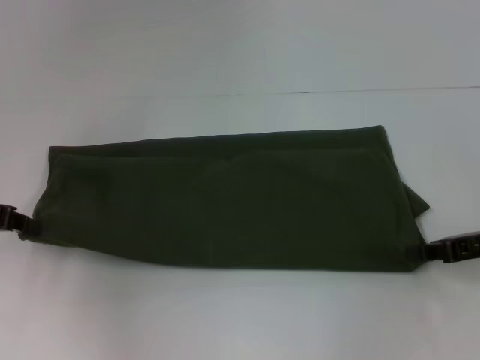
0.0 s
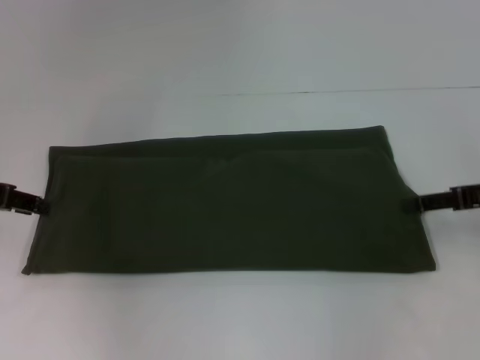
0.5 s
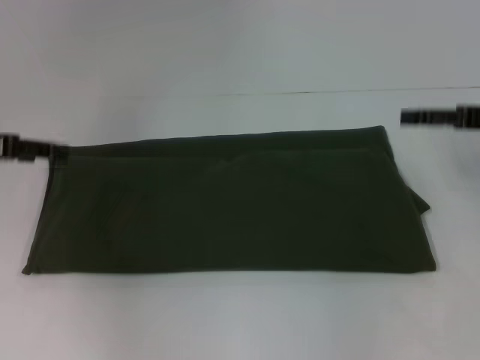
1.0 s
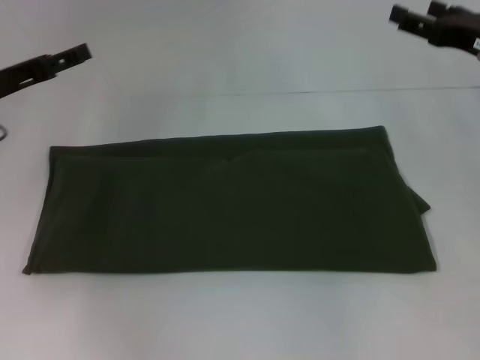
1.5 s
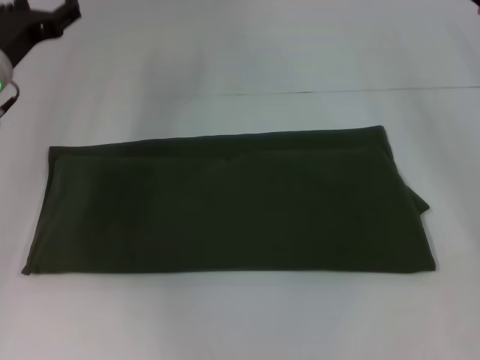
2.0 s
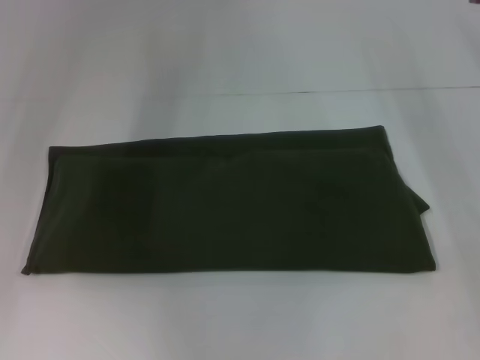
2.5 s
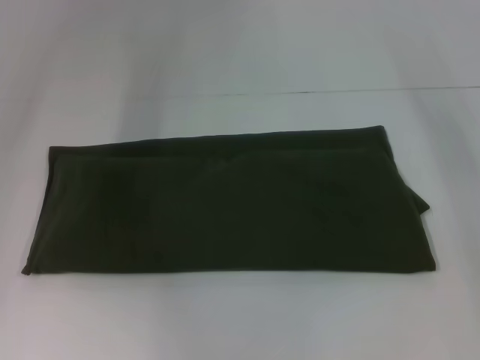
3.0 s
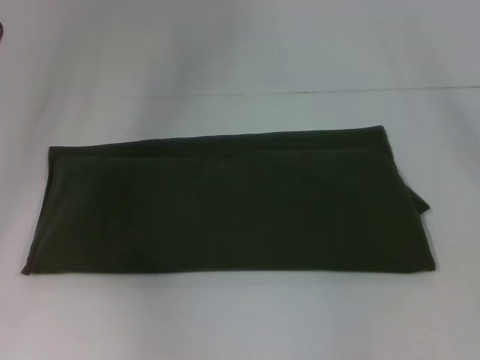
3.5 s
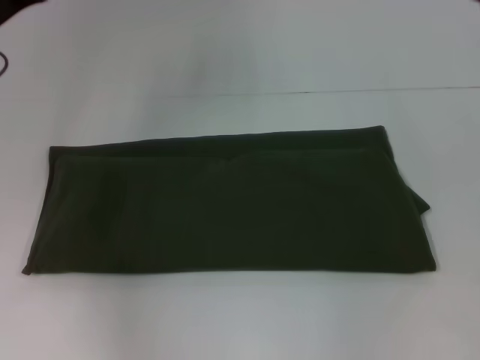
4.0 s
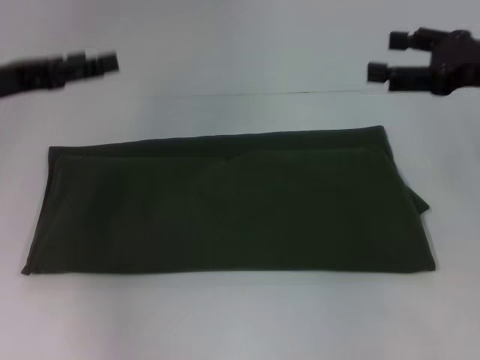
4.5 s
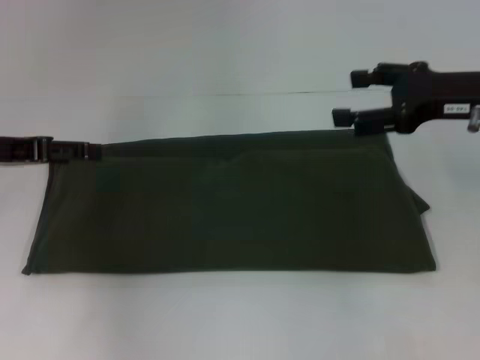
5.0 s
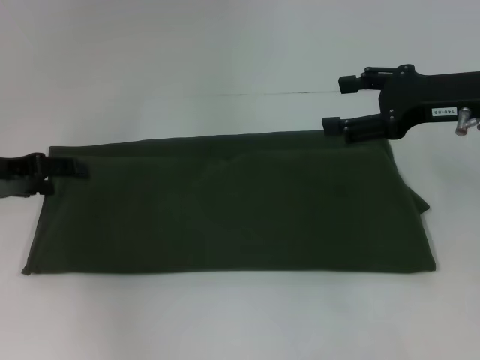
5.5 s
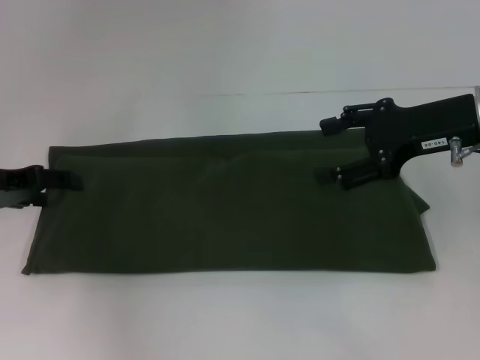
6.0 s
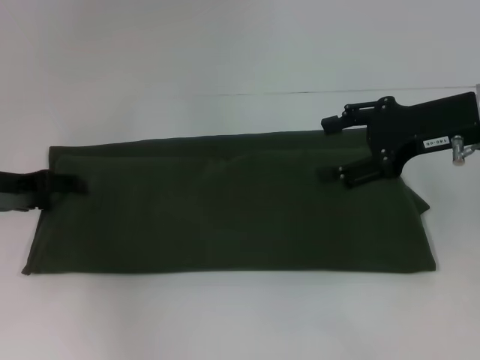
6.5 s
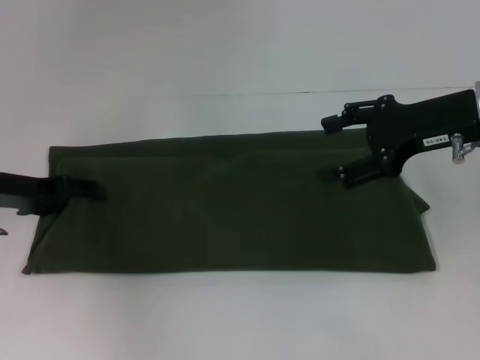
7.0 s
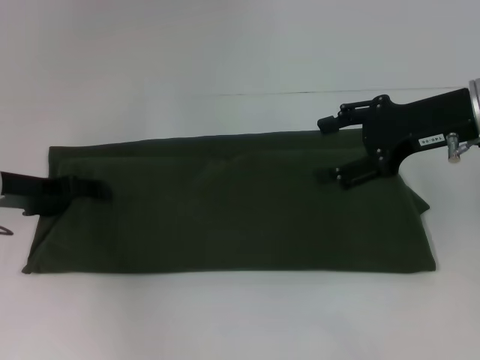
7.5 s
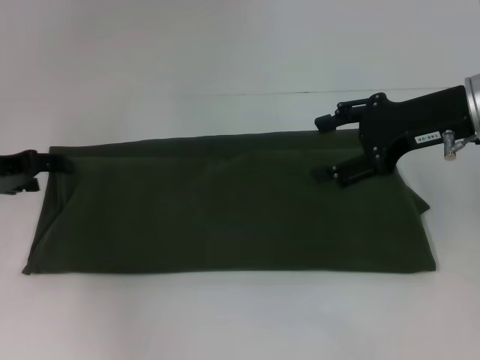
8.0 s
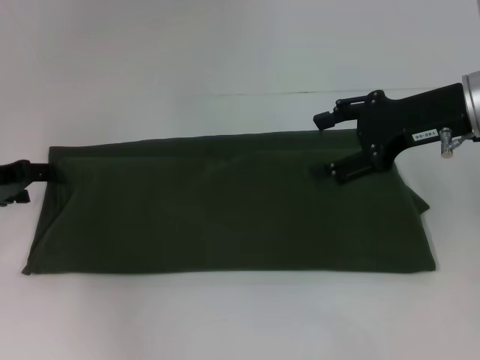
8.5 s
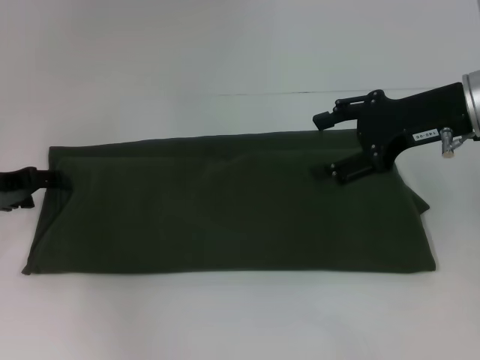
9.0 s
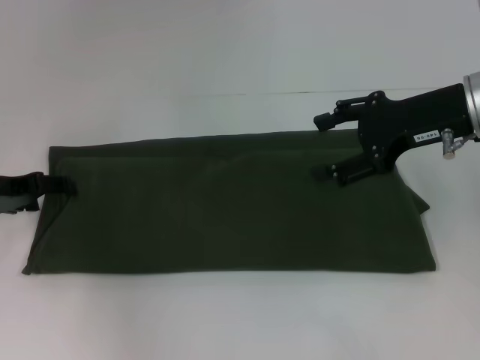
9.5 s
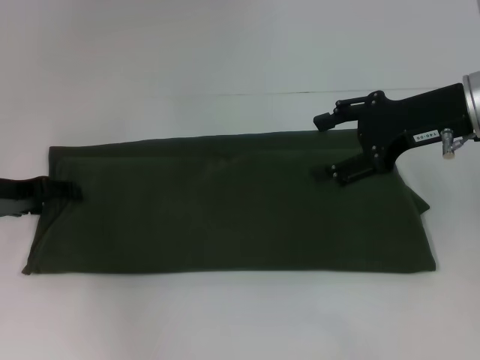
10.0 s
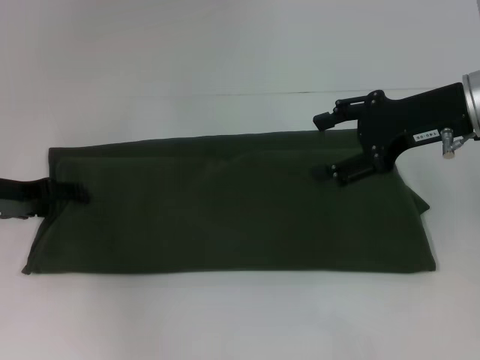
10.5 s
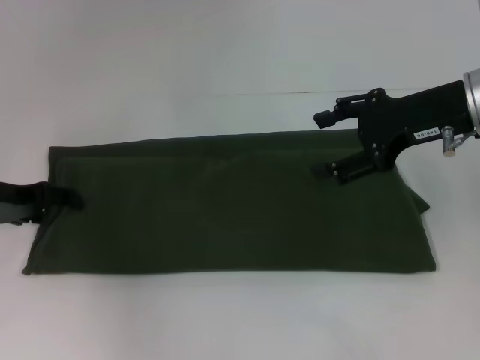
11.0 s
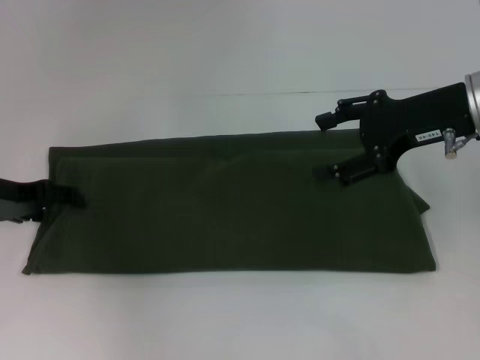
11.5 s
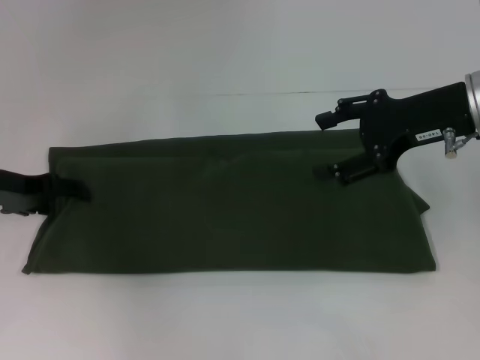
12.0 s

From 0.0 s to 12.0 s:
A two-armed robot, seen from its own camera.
From 0.0 s to 2.0 s: The left gripper moves forward and to the right, some 10 cm, and opens its fingers; the right gripper moves forward and upward, about 15 cm, and opens.
From 2.0 s to 4.0 s: The left gripper ends up some 5 cm from where it was.
From 4.0 s to 6.0 s: The left gripper travels downward by approximately 5 cm; the right gripper heads to the left, covering about 10 cm.
From 6.0 s to 12.0 s: The grippers make only small movements.

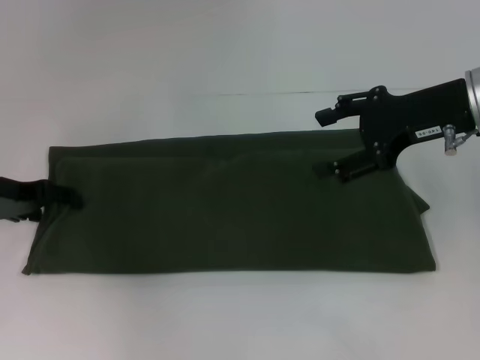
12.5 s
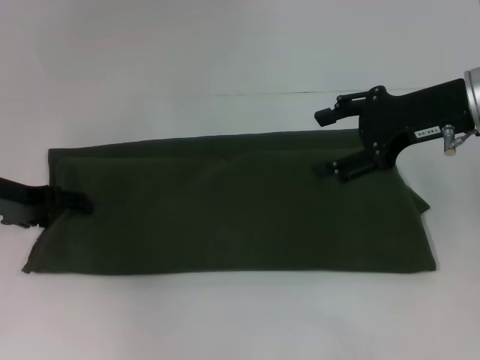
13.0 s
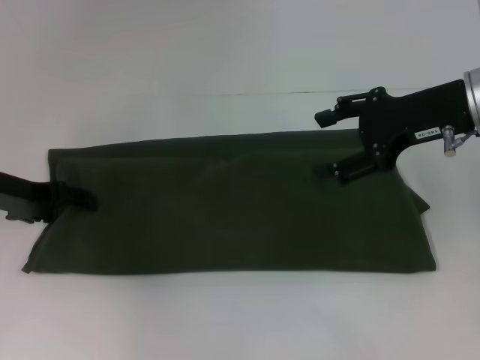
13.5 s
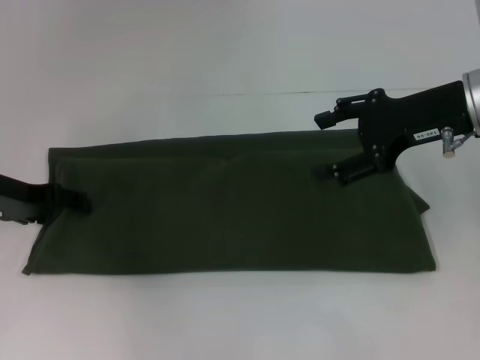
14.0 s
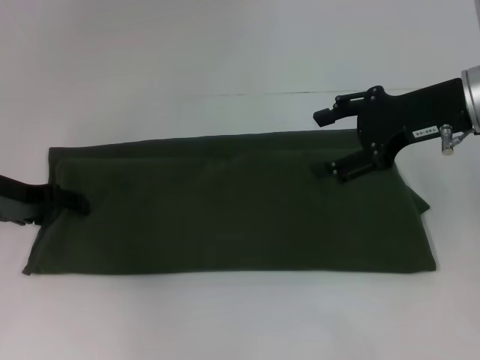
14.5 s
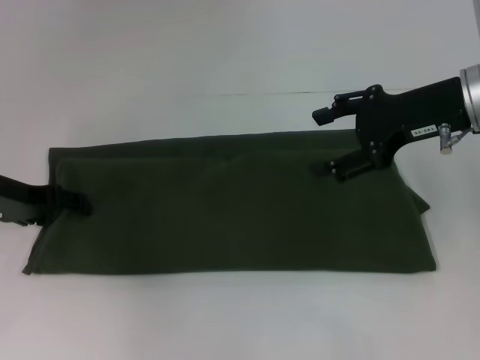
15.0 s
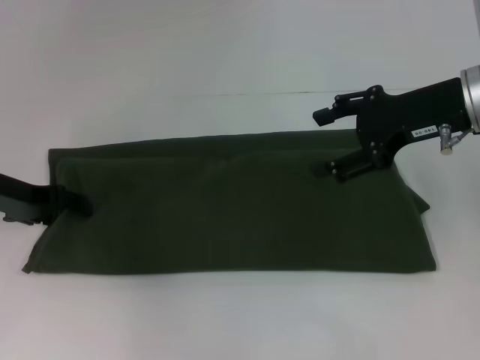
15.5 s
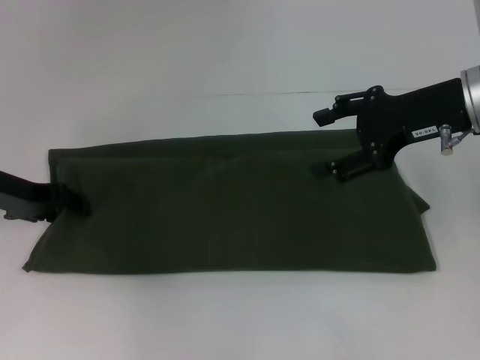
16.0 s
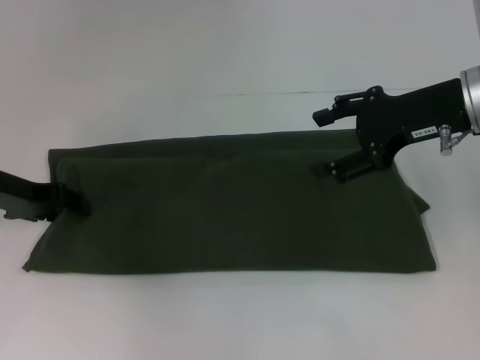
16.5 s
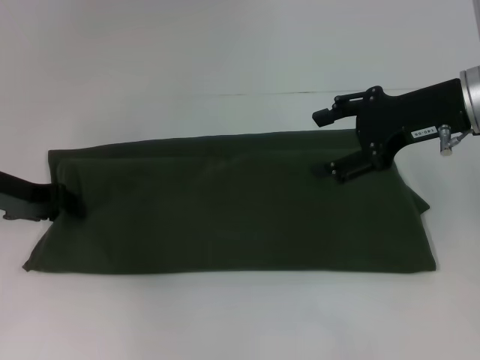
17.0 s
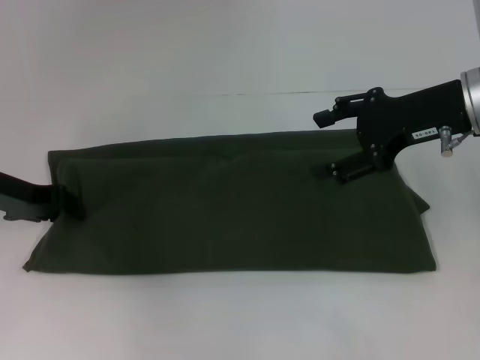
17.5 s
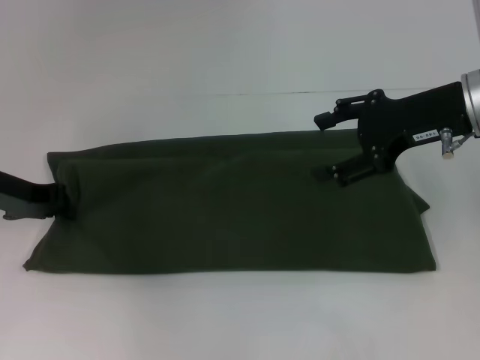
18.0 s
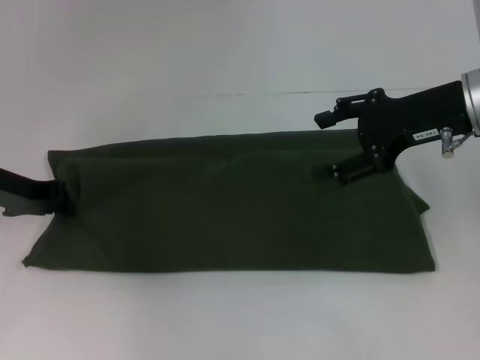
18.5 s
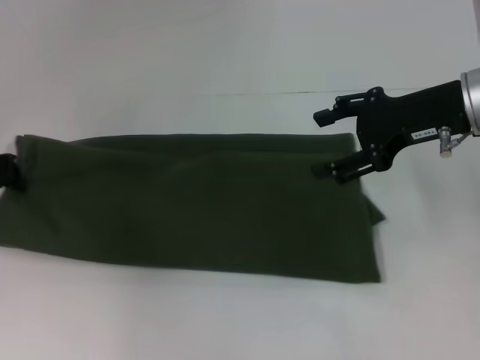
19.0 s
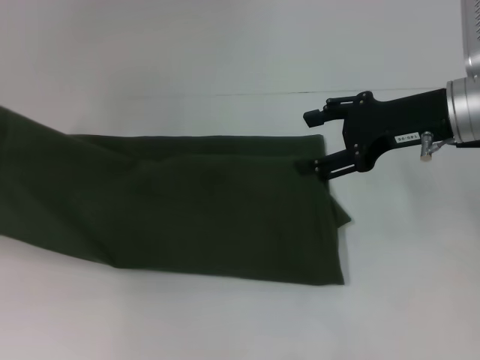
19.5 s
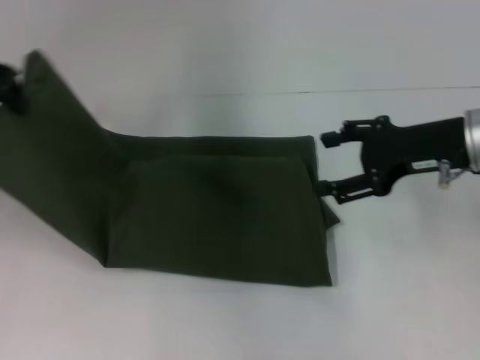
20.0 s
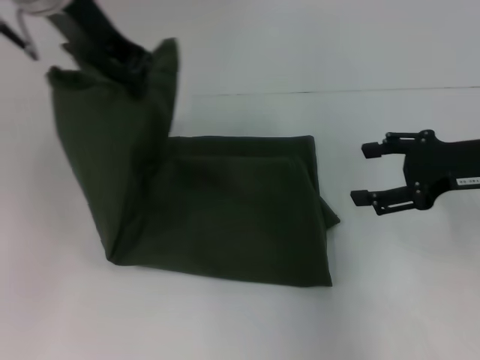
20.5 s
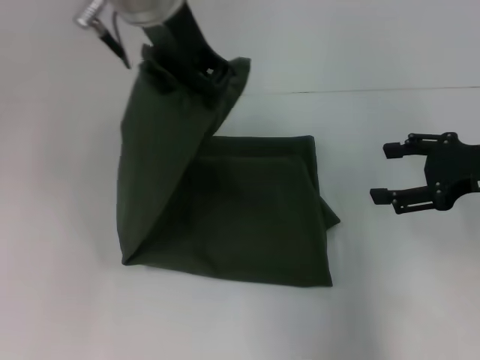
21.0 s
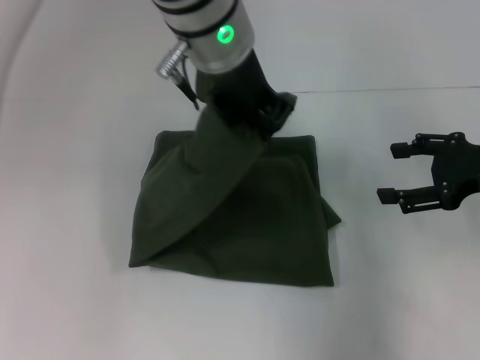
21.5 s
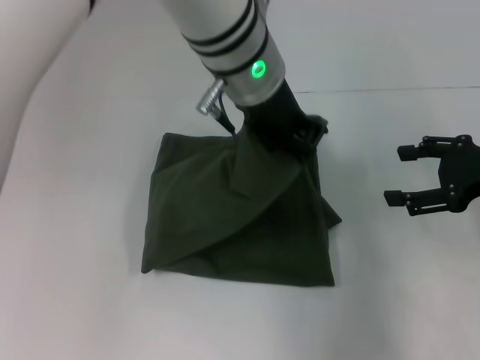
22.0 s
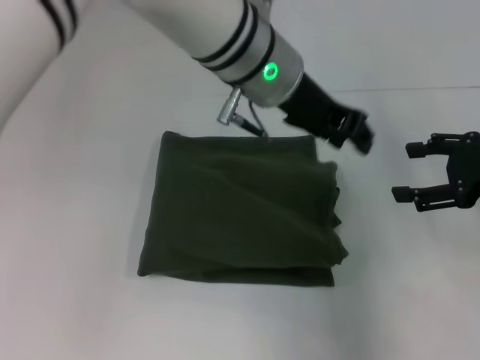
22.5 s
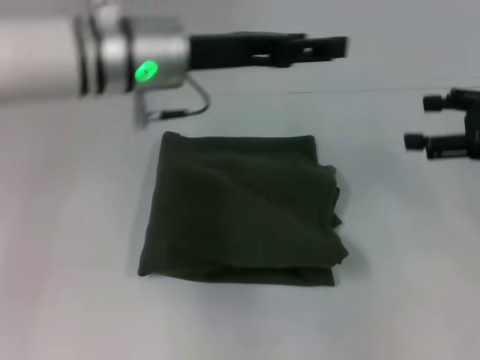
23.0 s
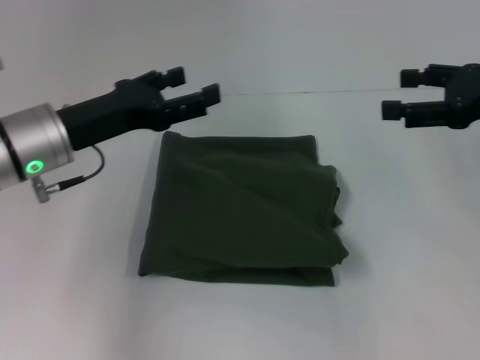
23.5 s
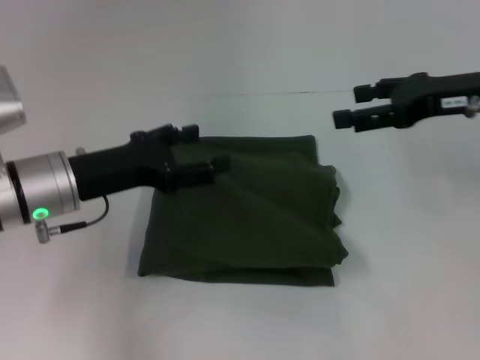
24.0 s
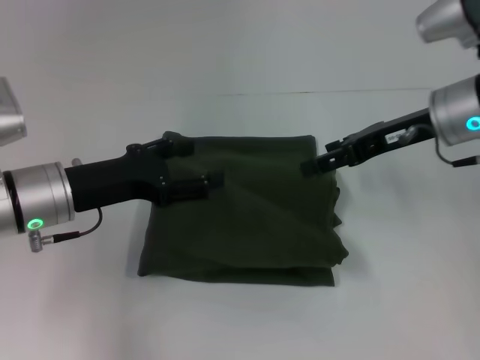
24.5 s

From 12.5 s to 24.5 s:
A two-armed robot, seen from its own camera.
Step, from 12.5 s to 22.0 s: Fold the clothes with your left hand.
From 12.5 s to 14.5 s: Neither gripper changes place.
From 14.5 s to 16.5 s: The two grippers keep their place.
From 16.5 s to 18.5 s: The left gripper closes its fingers.
From 18.5 s to 20.5 s: The right gripper is displaced to the right by some 5 cm; the left gripper goes roughly 25 cm upward and to the right.
From 20.5 s to 22.5 s: The left gripper heads to the right and downward, covering about 15 cm.
From 22.5 s to 24.5 s: The left gripper shifts some 25 cm to the left and downward, and opens; the right gripper moves to the left and forward, about 10 cm.

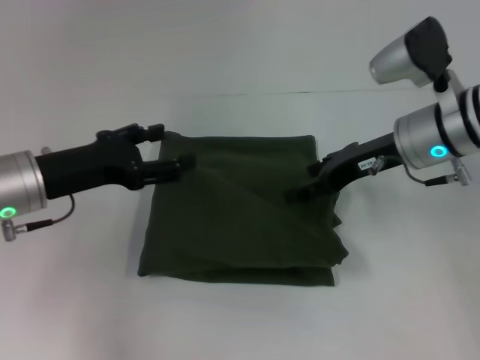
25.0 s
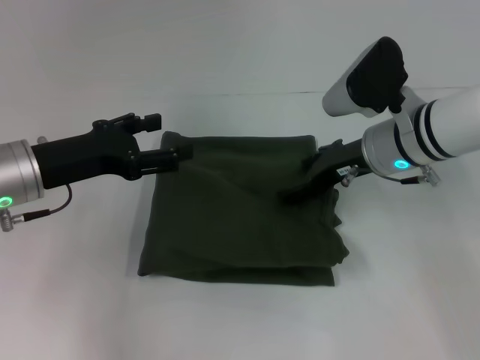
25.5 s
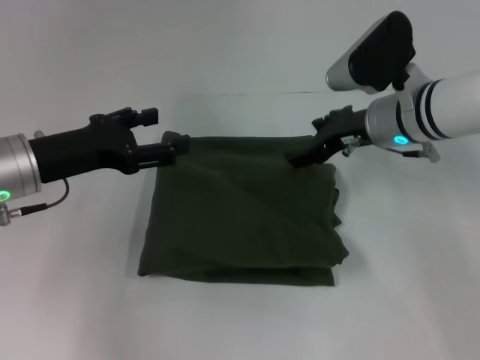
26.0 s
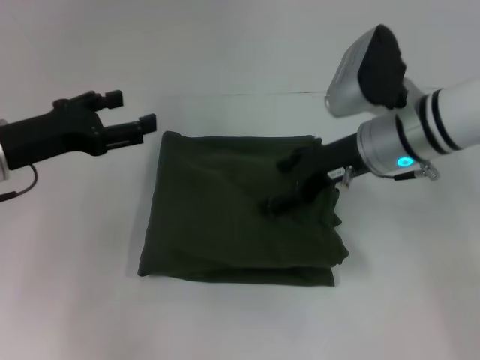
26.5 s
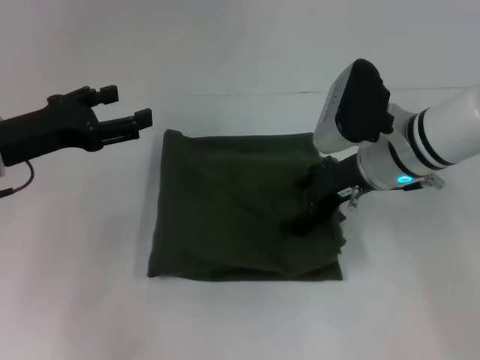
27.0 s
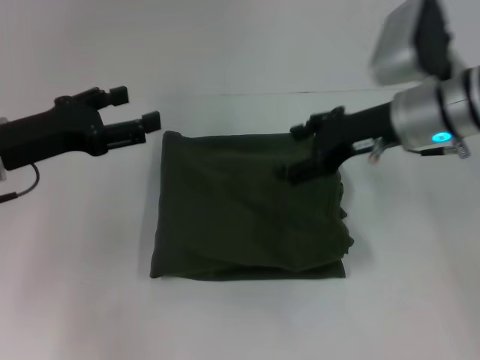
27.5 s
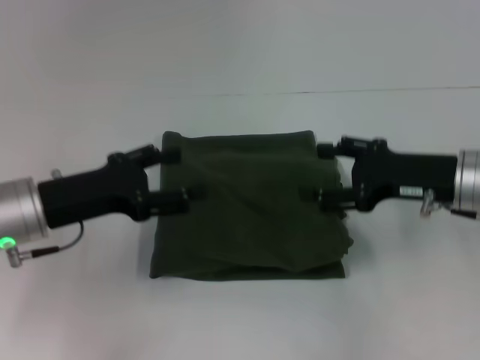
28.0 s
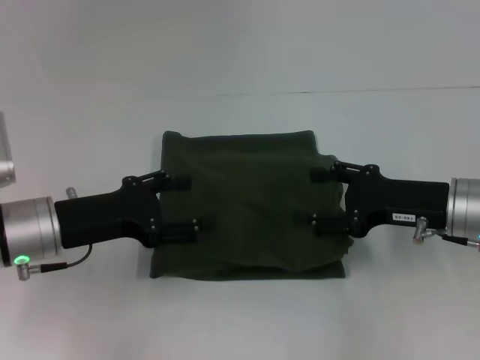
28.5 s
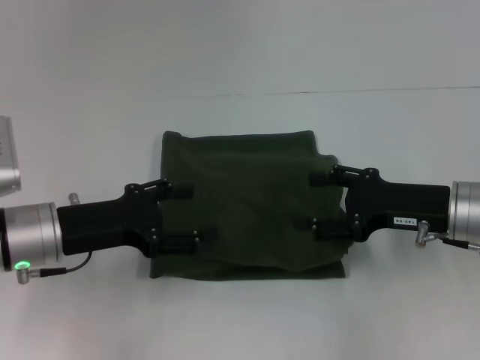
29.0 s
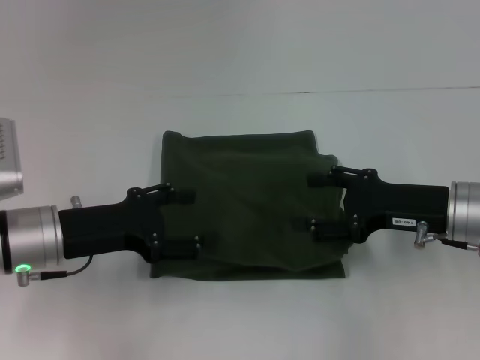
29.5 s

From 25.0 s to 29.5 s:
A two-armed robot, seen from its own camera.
From 27.0 s to 29.5 s: The right gripper is displaced to the right and backward by approximately 10 cm. The left gripper moves downward, roughly 5 cm.
